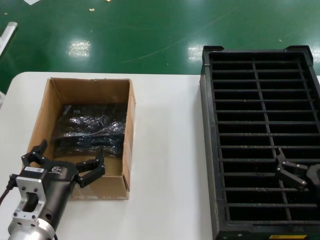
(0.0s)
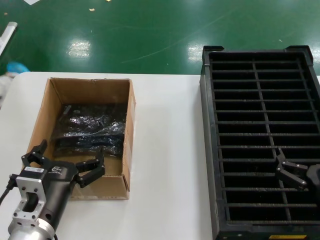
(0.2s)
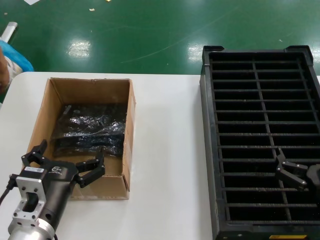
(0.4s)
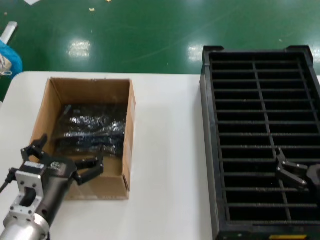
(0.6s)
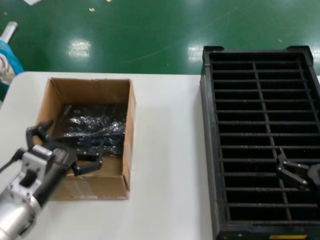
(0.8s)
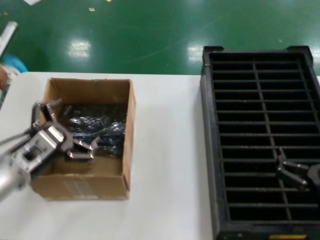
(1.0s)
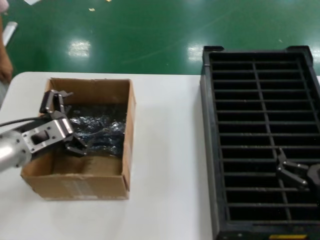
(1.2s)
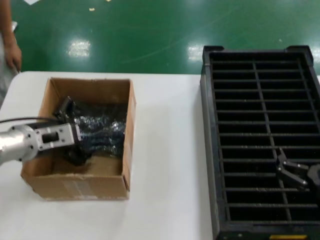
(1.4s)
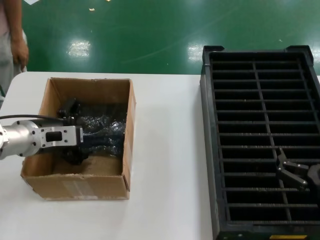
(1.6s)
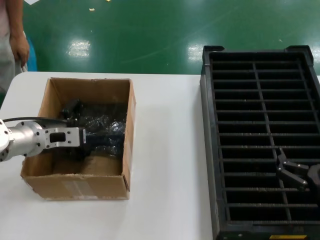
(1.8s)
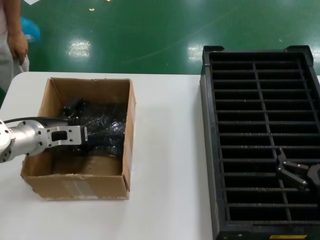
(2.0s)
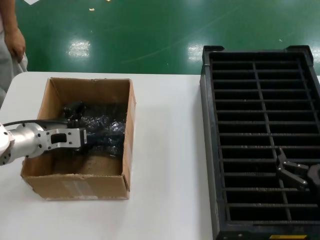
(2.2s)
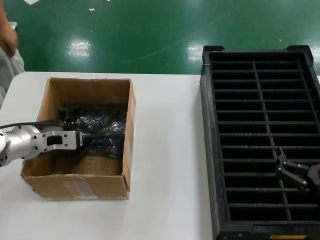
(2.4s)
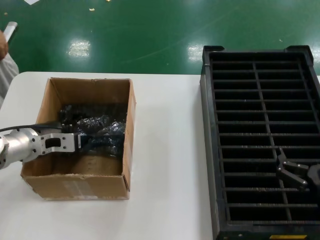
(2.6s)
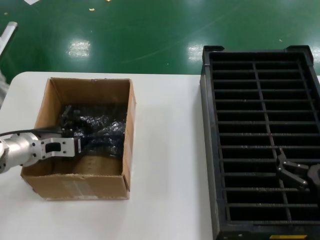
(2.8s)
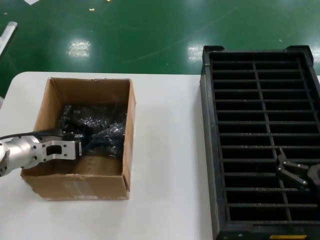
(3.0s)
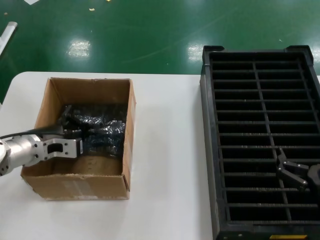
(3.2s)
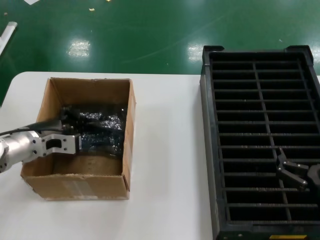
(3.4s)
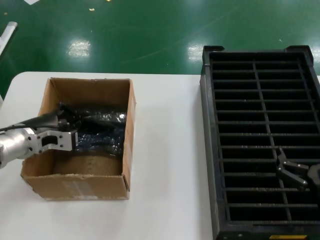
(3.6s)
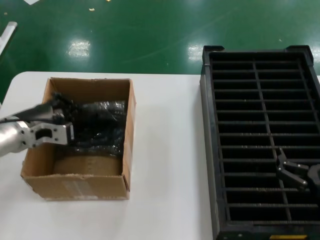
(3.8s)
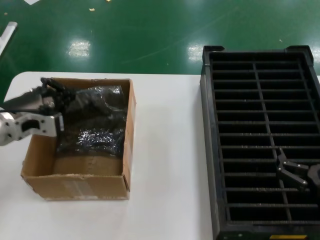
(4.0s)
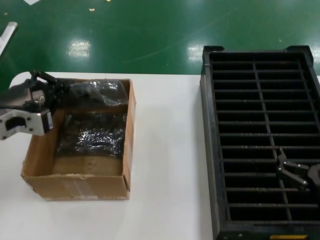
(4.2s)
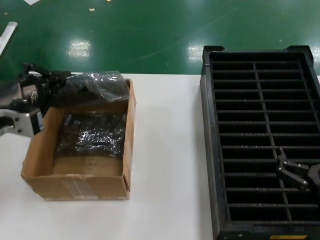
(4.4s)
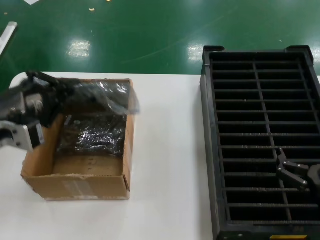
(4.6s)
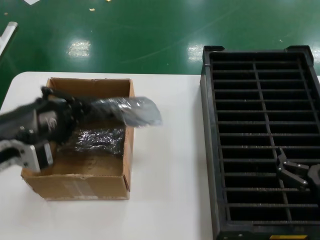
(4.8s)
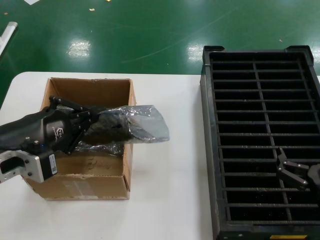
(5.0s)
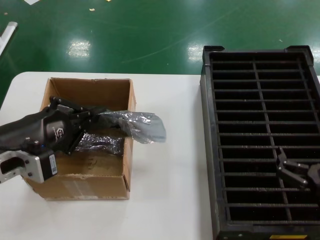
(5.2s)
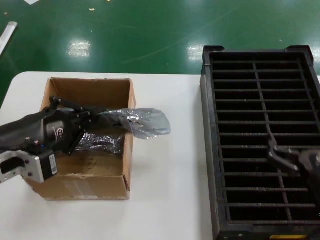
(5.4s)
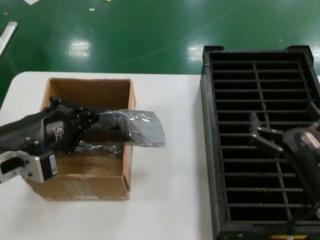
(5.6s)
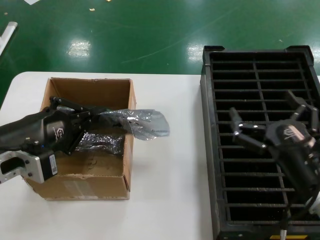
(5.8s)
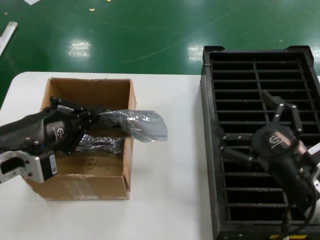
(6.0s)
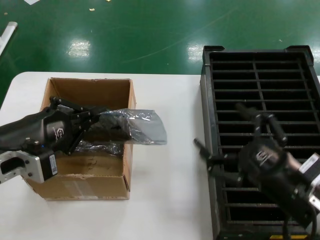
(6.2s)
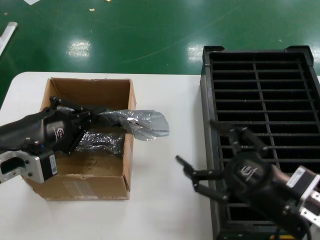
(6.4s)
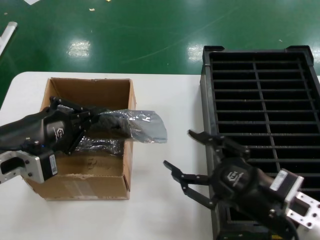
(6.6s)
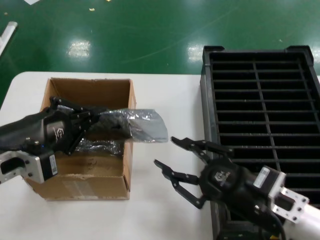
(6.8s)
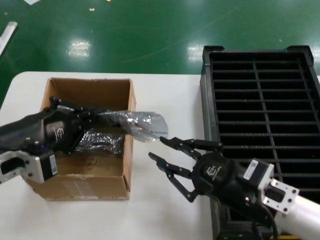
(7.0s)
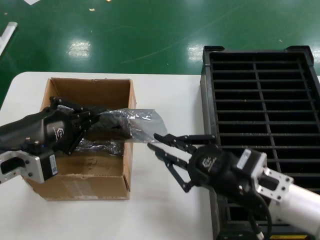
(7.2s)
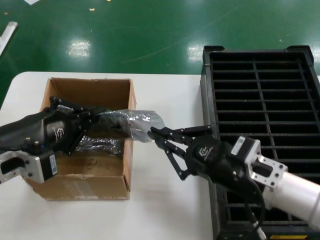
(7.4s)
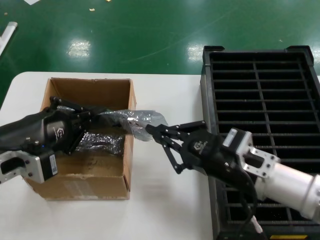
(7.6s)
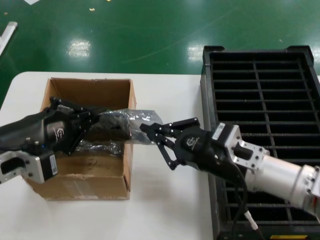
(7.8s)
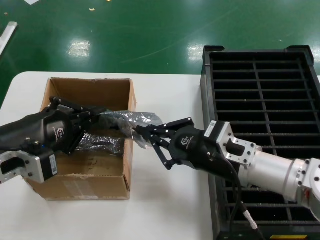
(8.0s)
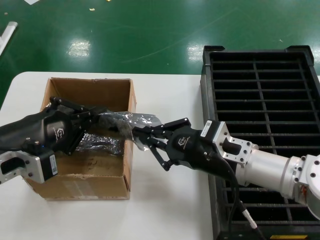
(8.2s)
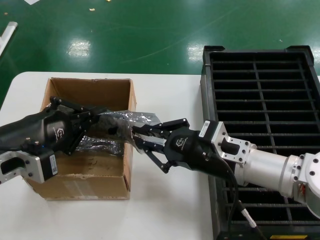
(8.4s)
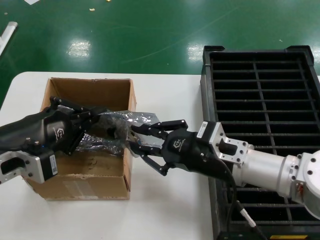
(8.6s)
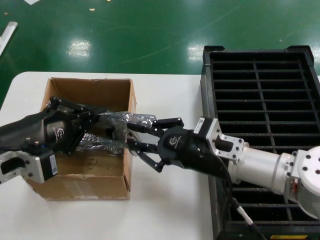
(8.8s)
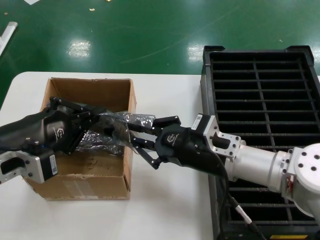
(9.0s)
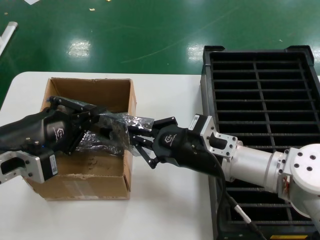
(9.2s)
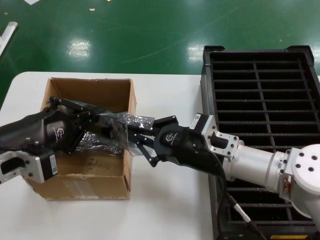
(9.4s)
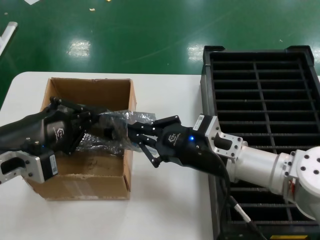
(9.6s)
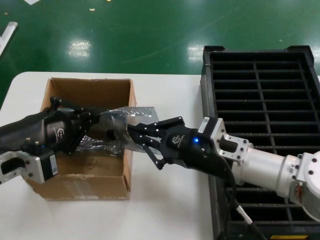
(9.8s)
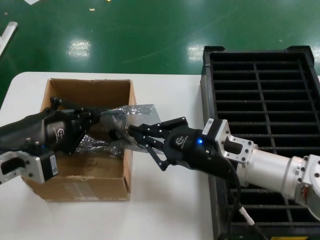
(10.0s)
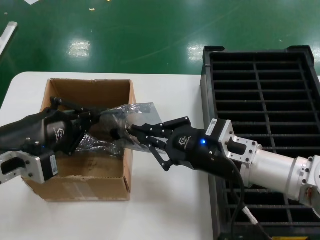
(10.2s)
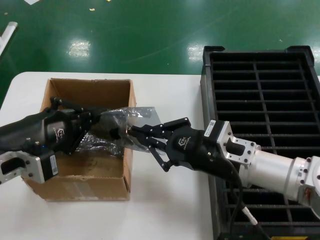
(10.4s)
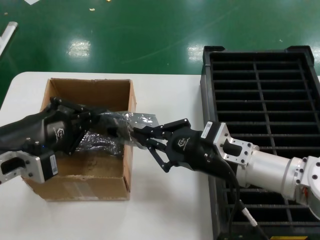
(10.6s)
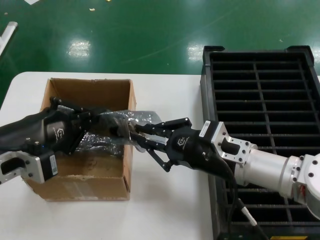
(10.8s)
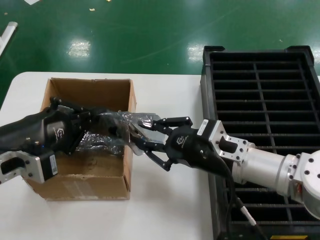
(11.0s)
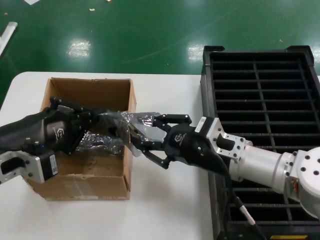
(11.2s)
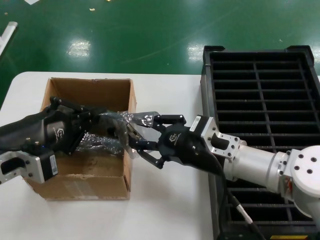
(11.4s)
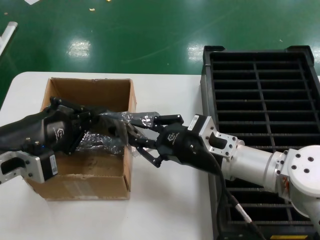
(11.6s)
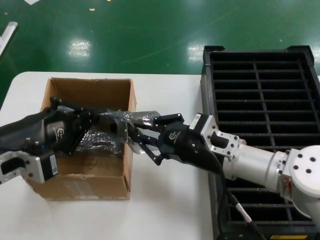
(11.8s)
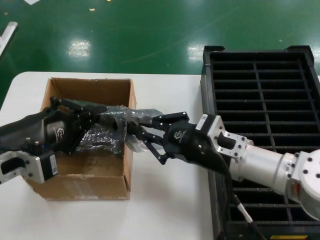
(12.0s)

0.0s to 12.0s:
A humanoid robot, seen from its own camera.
Task of the whole recording: take out graphics card from box remove packaging put into black container.
Step, 0.0s to 3.0s: Grasp the bag.
Step, 3.2s to 5.2s: Lift the bag.
0.0s to 1.6s: The left hand heads forward, upward and to the left, covering roughly 25 cm.
1.6s to 3.0s: The hands make only small movements.
3.0s to 4.4s: The left hand goes roughly 15 cm upward and backward.
4.4s to 6.0s: The left hand travels backward by approximately 5 cm. Meanwhile the right hand goes roughly 5 cm upward.
6.0s to 7.6s: The right hand shifts approximately 10 cm to the left and forward.
7.6s to 9.0s: The right hand heads forward, covering roughly 5 cm.
9.0s to 12.0s: The hands stay close to where they were, moving slightly.

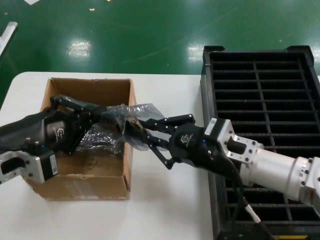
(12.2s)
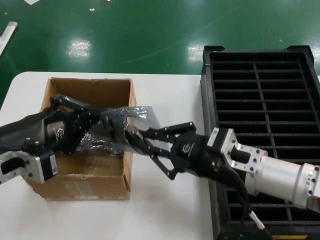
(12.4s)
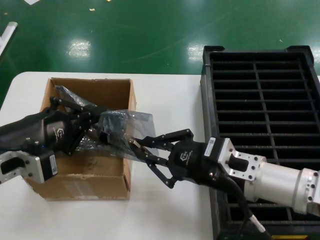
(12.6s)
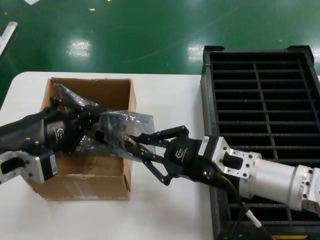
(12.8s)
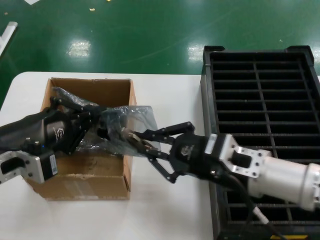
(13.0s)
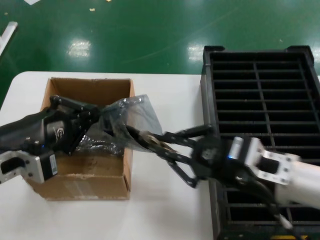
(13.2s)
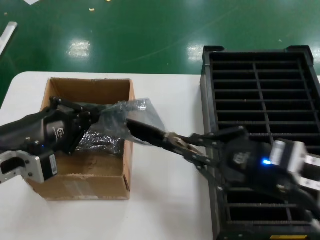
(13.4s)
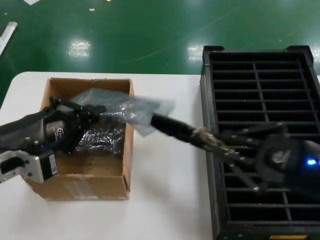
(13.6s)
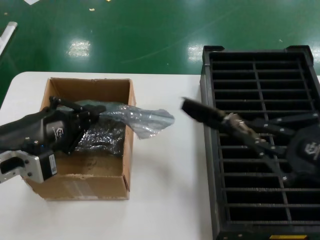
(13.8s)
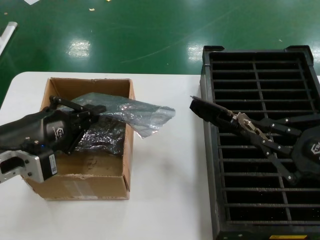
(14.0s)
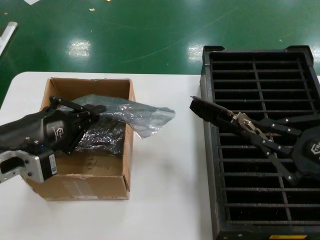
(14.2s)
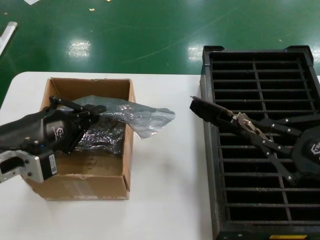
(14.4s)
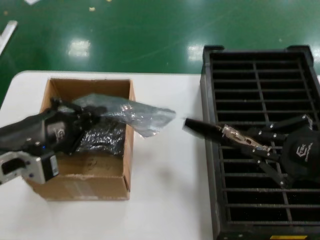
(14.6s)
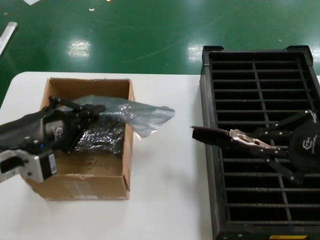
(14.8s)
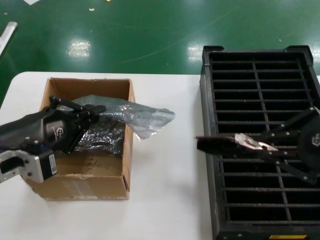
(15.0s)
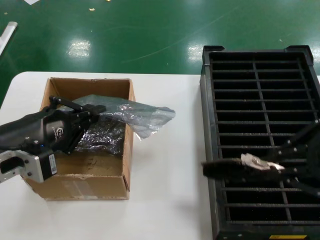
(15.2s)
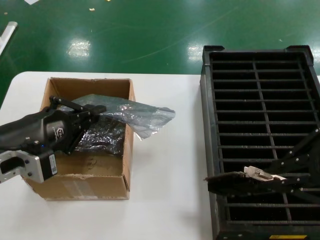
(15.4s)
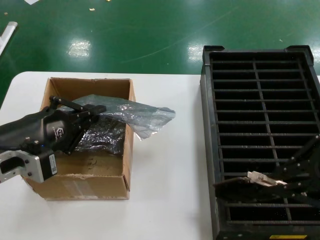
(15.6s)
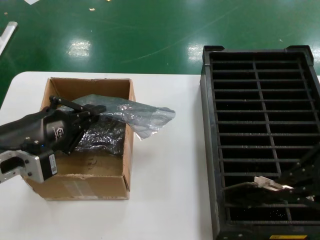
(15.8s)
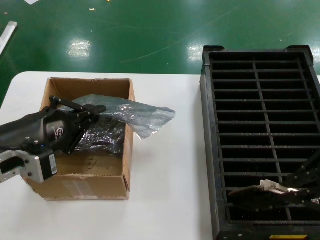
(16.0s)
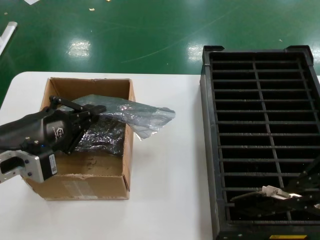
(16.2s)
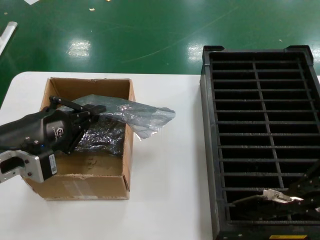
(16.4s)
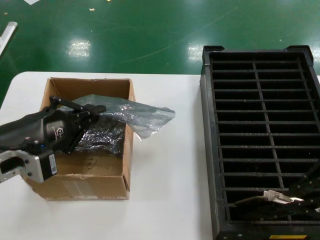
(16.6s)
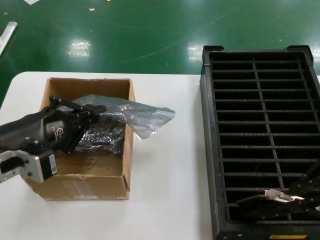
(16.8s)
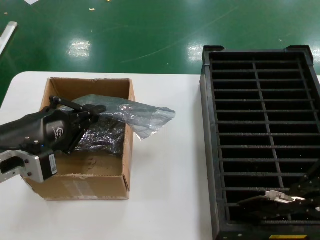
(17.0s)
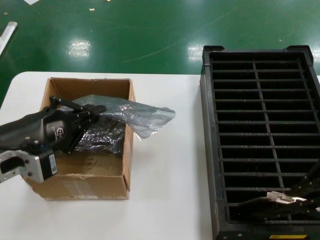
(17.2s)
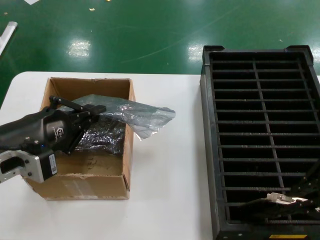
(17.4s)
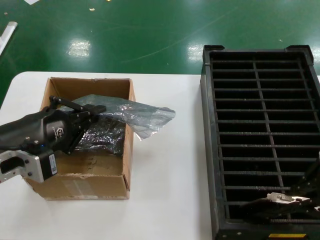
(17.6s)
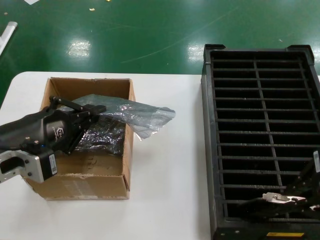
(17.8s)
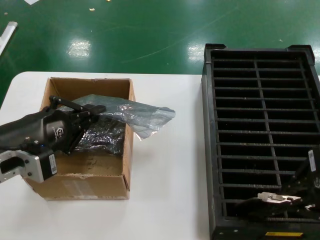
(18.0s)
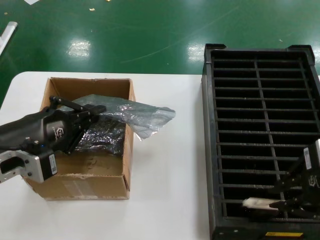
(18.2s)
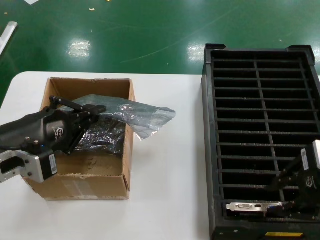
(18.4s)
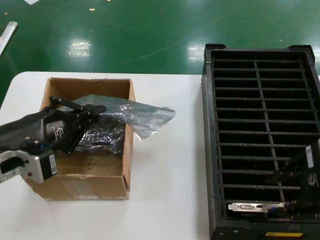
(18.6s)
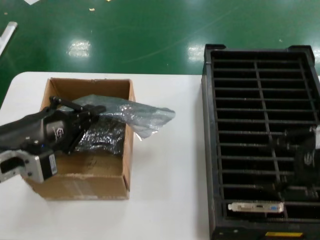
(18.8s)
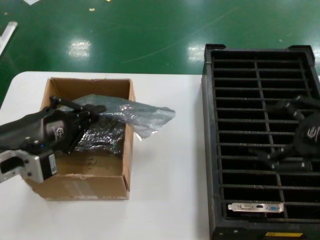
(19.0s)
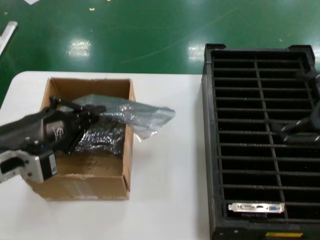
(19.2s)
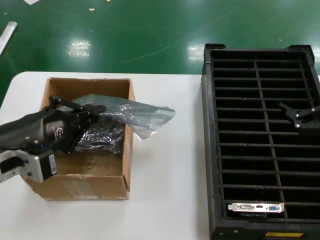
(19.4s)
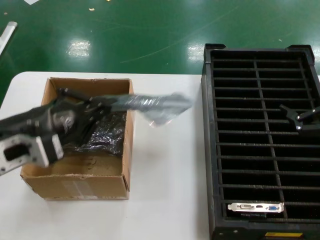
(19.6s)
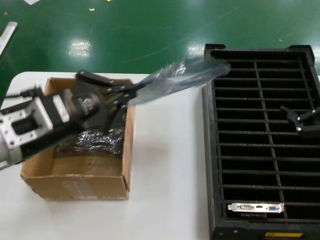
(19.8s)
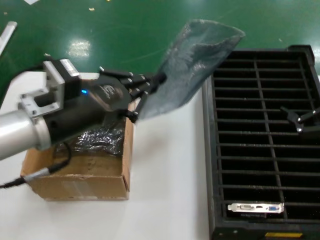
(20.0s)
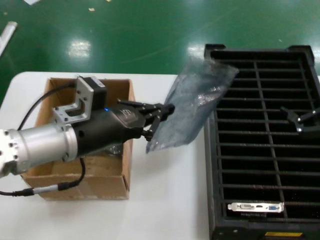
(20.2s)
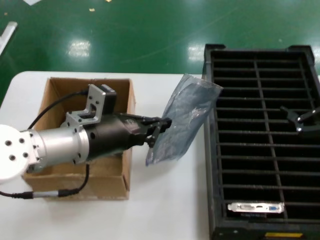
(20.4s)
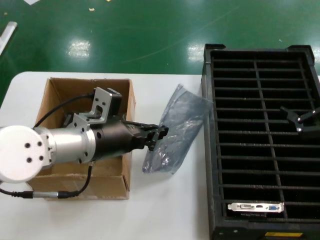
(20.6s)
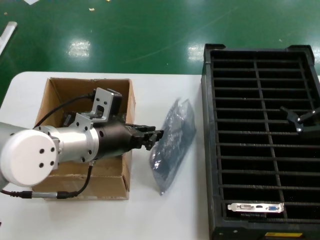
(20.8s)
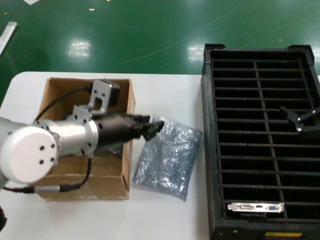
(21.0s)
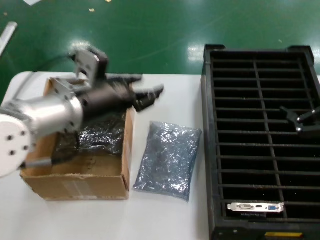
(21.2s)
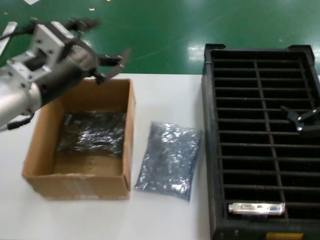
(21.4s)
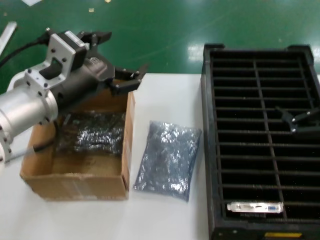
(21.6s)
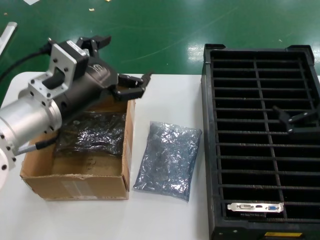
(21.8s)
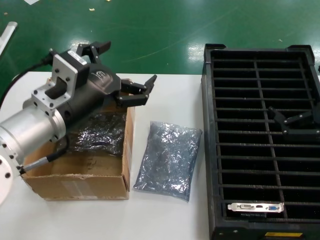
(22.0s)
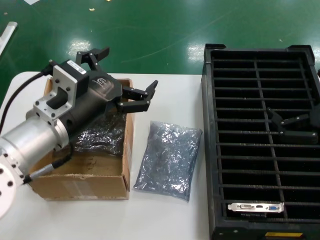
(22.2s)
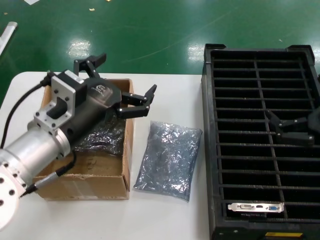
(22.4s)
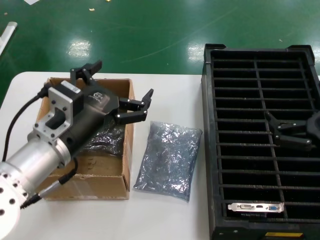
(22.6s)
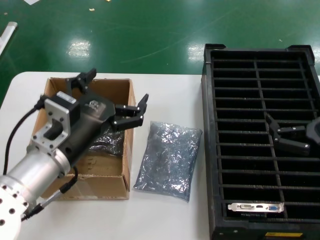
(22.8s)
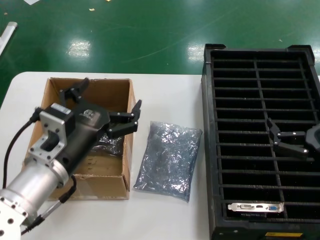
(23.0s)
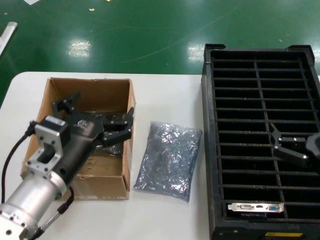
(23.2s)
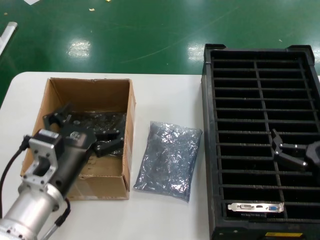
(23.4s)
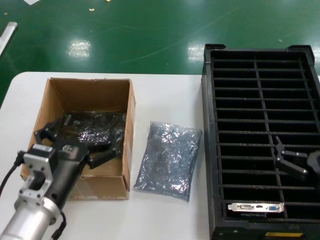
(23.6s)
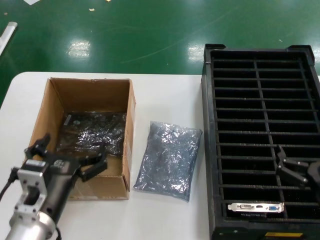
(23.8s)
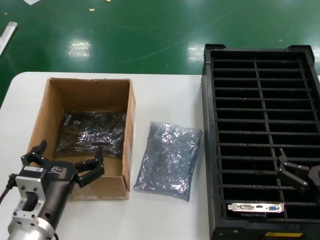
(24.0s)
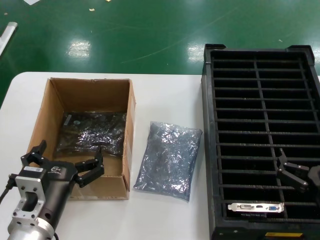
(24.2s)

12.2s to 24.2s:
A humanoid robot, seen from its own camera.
Task of the whole recording: take out graphics card from box remove packaging put into black container.
Step, 14.0s to 19.0s: Place the hard disk in the hard disk enclosure.
Step, 19.2s to 23.8s: Place the down the bag.
12.2s to 13.8s: The right hand goes approximately 20 cm to the right, backward and upward.
13.8s to 15.2s: The right hand moves upward, about 10 cm.
15.2s to 16.6s: The hands stay close to where they were, moving slightly.
16.6s to 18.2s: The hands stay close to where they were, moving slightly.
18.2s to 19.8s: The right hand heads to the right, covering approximately 5 cm.
19.8s to 21.2s: The left hand goes roughly 10 cm forward and to the right.
21.2s to 22.6s: The left hand goes about 5 cm downward, while the right hand moves downward, roughly 10 cm.
22.6s to 24.2s: The left hand moves downward and backward, approximately 15 cm; the right hand is displaced downward by roughly 10 cm.
